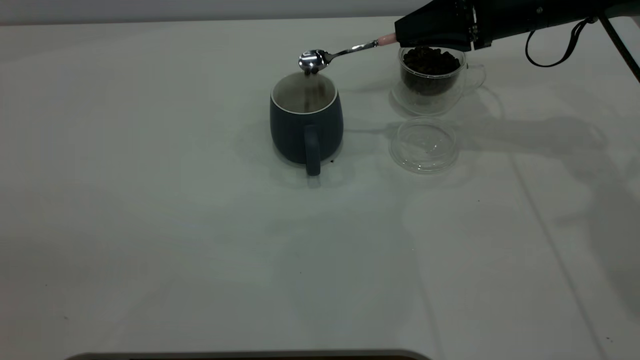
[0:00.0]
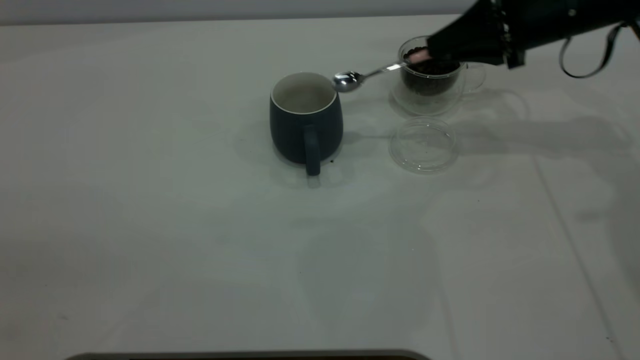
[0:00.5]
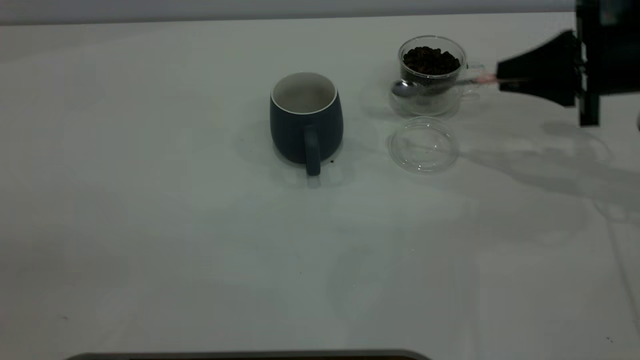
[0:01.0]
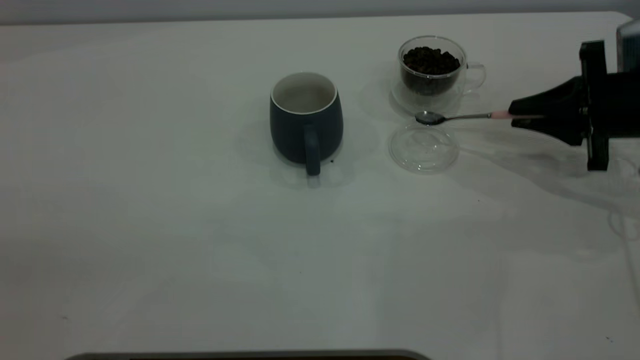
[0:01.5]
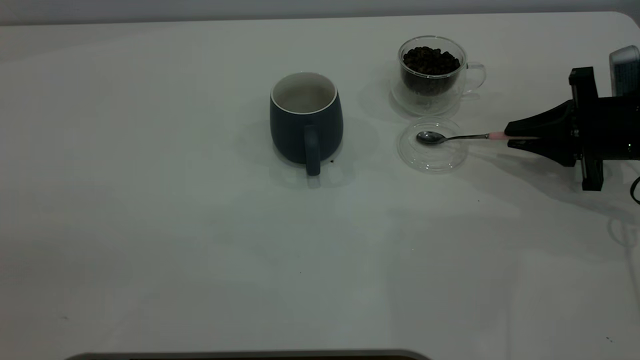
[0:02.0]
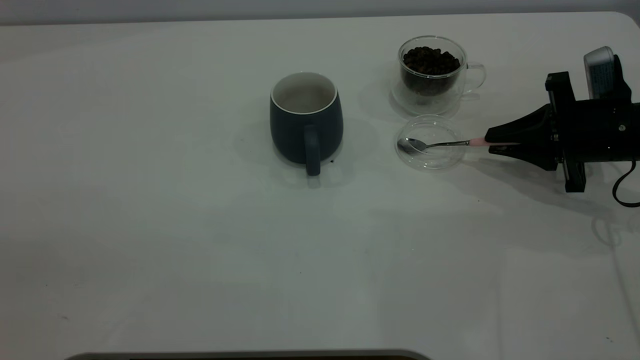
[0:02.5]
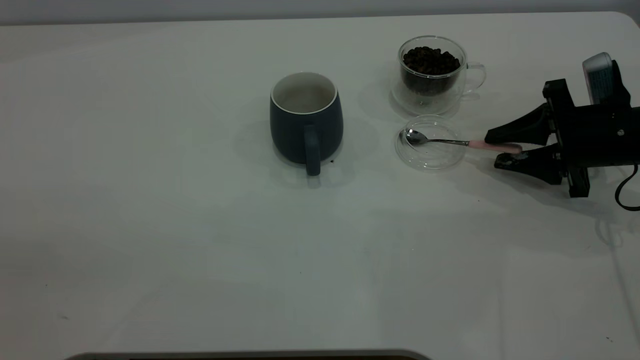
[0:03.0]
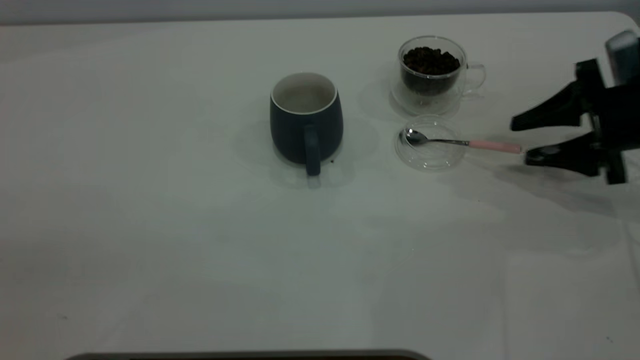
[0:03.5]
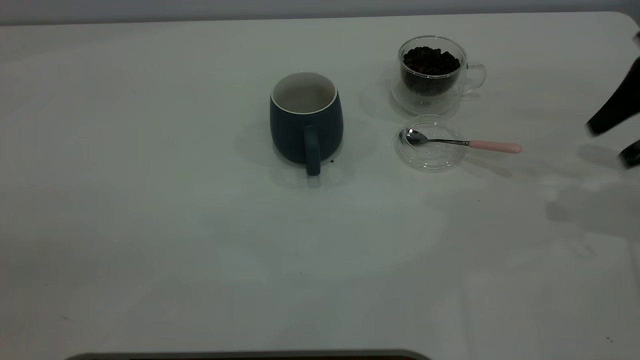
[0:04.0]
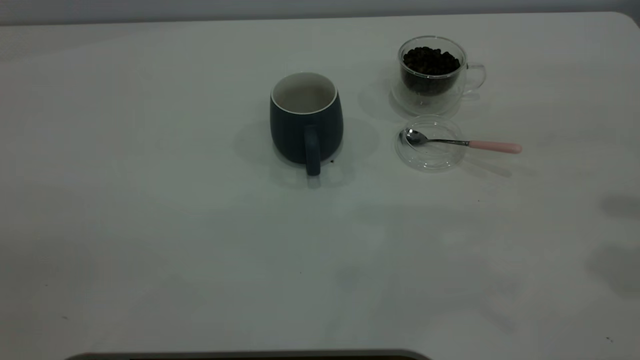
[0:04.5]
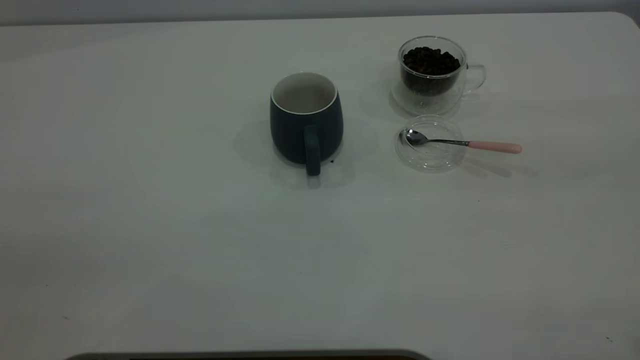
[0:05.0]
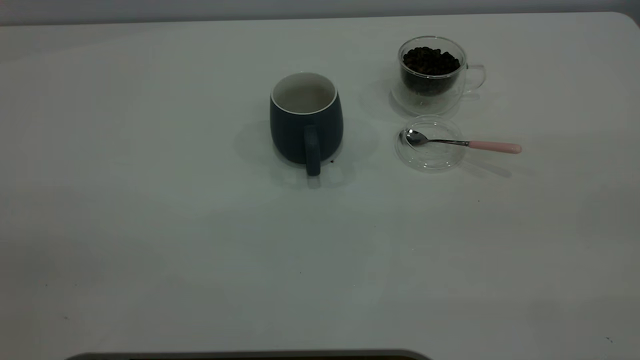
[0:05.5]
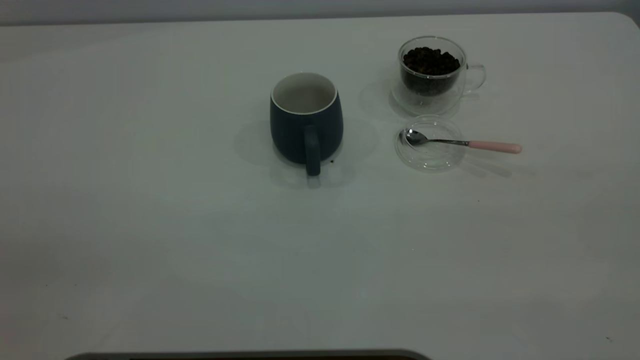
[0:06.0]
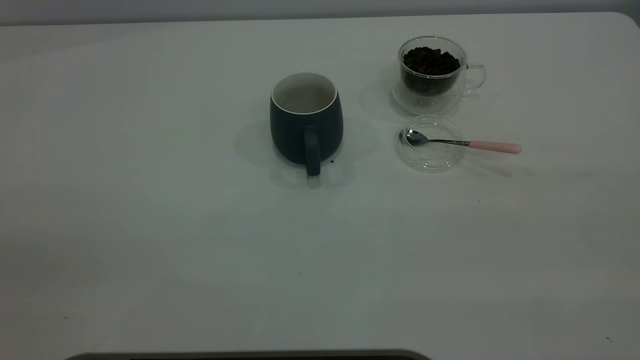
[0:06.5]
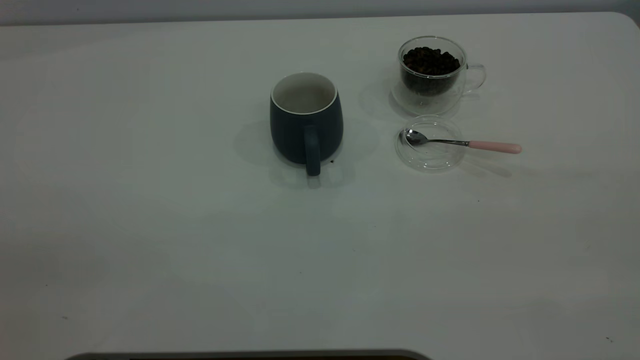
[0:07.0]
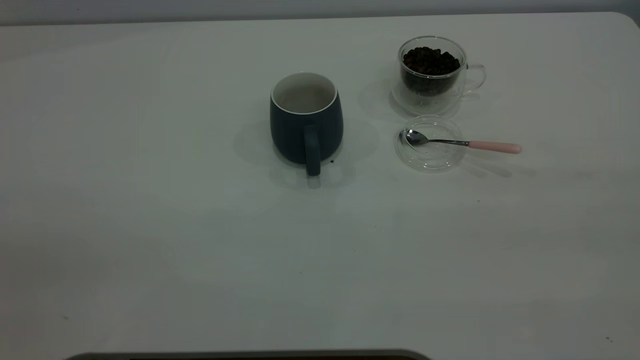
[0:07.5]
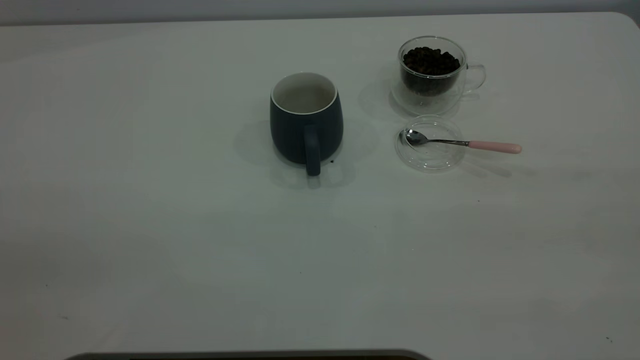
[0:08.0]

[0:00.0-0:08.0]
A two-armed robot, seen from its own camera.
Task of the whole recording: the left gripper place the grey cup in the center of the table, the right gripper take the pink spoon from the cup lid and scoop out the coffee beans from the coffee cup and put them into the grey cup, the right gripper put the spoon back into the cup lid.
Step, 0:00.5 to 0:03.5: Place the spoon back in its original place.
0:00.0 to 0:02.0: The right gripper goes some 20 cm to the right, downward and backward.
0:02.0 to 0:04.0: The right gripper heads upward, covering roughly 15 cm, and opens its fingers.
0:04.0 to 0:06.0: The right gripper is displaced backward and upward by approximately 35 cm.
